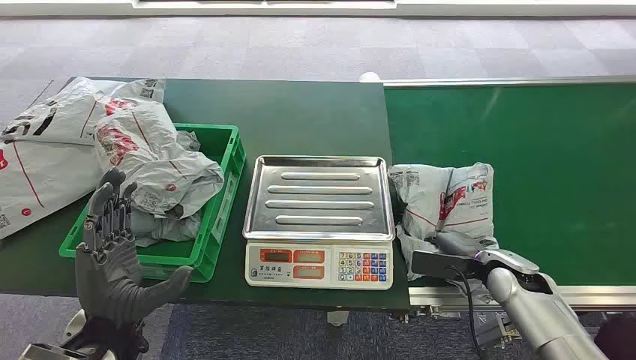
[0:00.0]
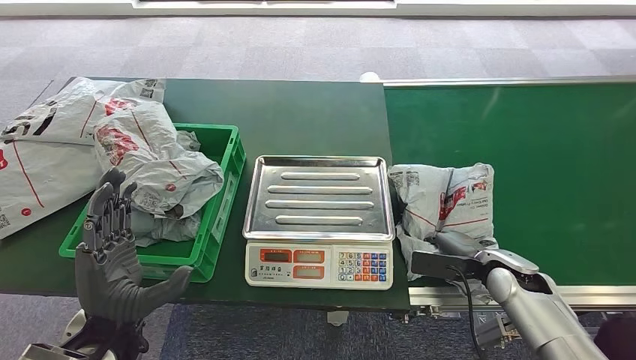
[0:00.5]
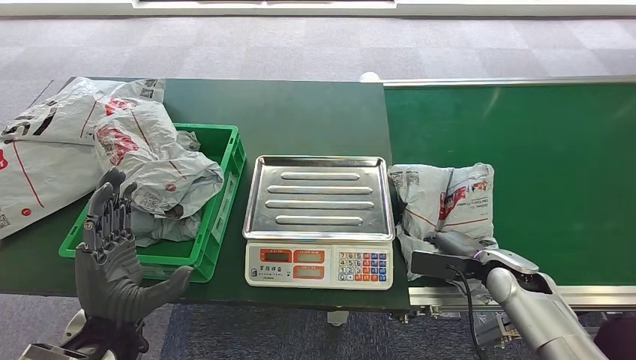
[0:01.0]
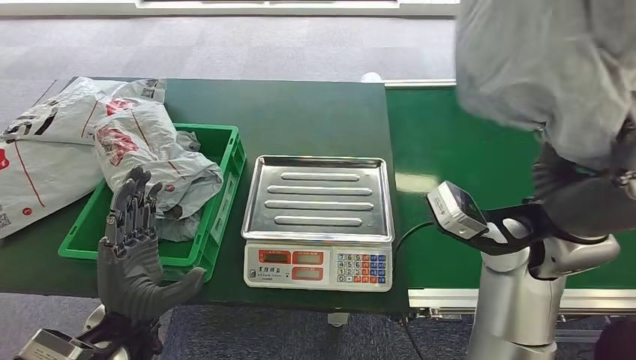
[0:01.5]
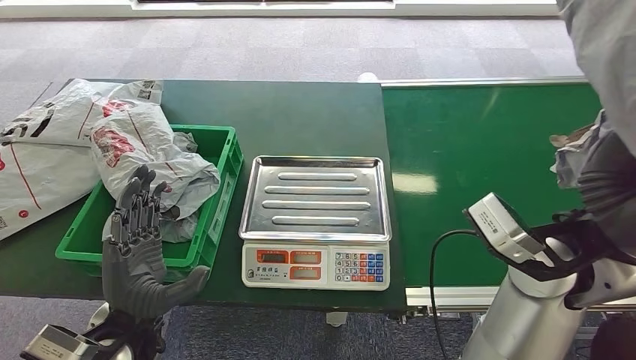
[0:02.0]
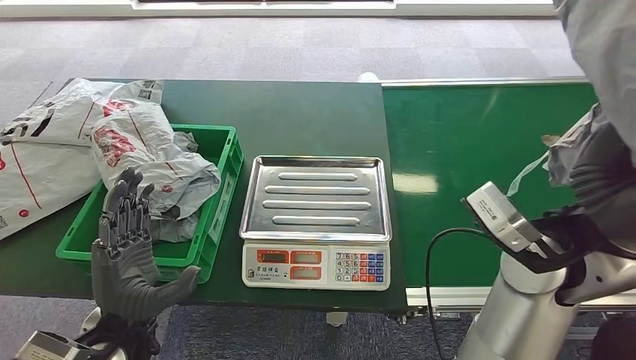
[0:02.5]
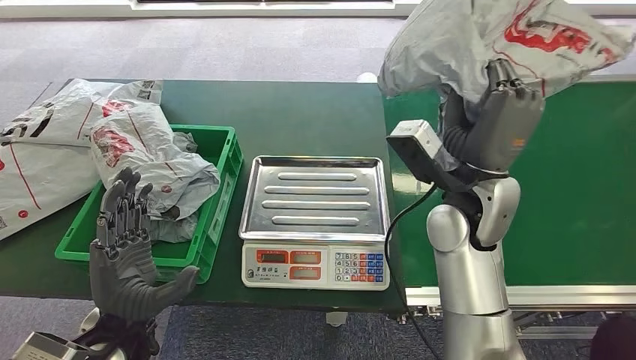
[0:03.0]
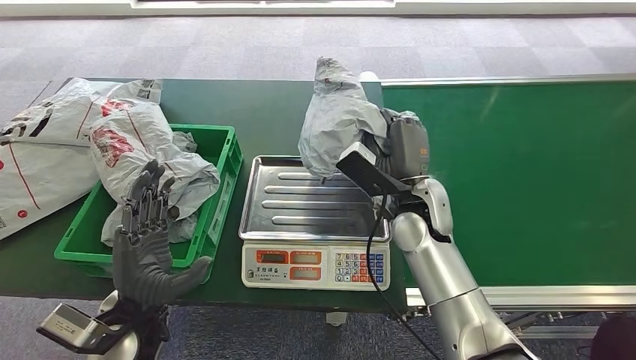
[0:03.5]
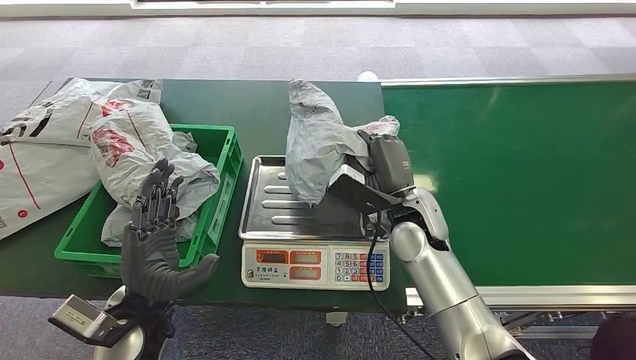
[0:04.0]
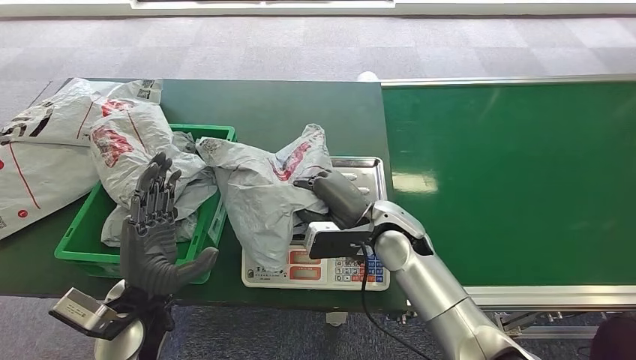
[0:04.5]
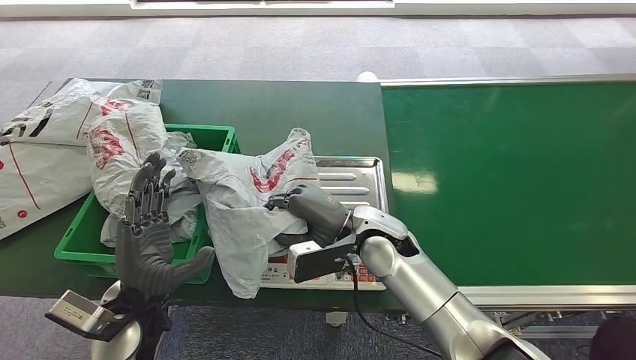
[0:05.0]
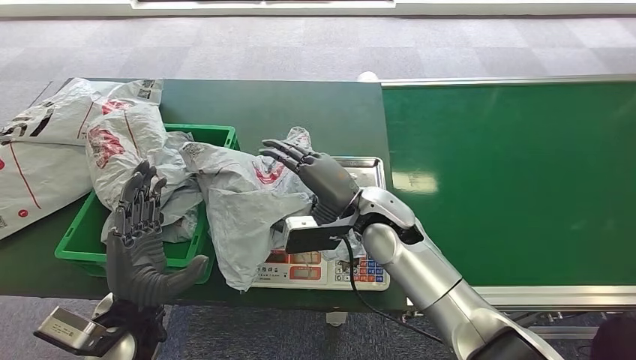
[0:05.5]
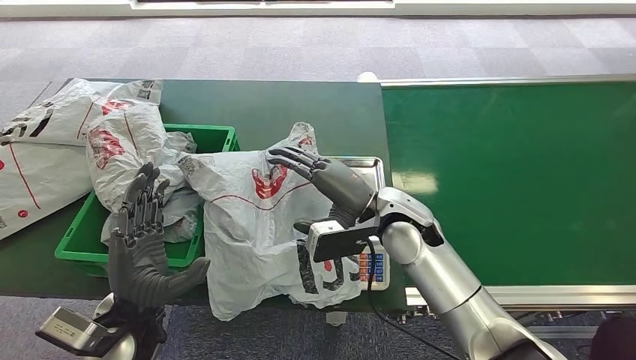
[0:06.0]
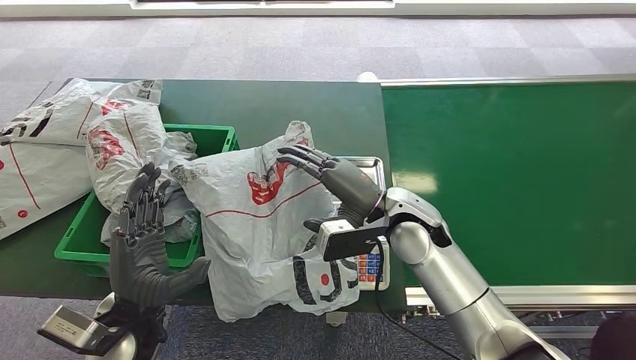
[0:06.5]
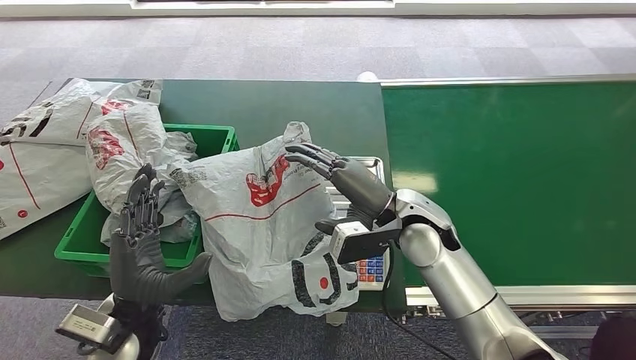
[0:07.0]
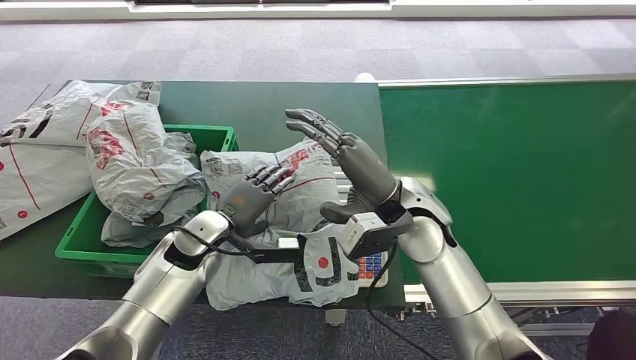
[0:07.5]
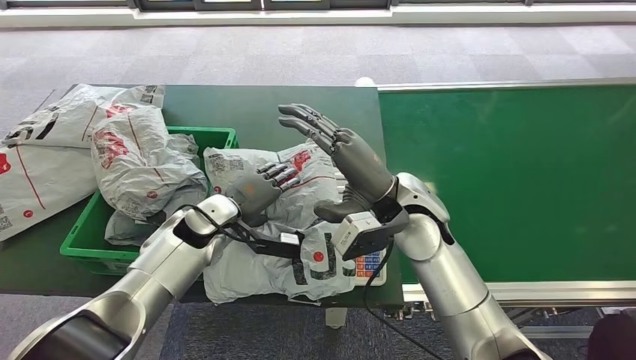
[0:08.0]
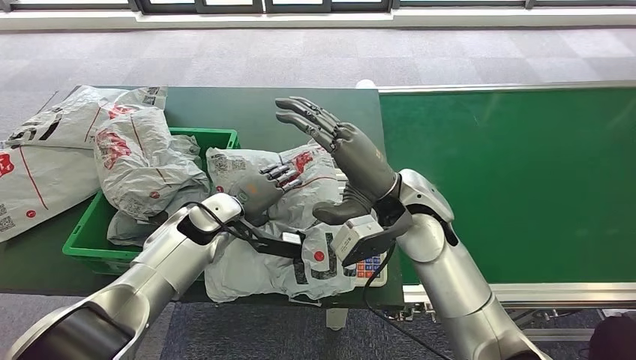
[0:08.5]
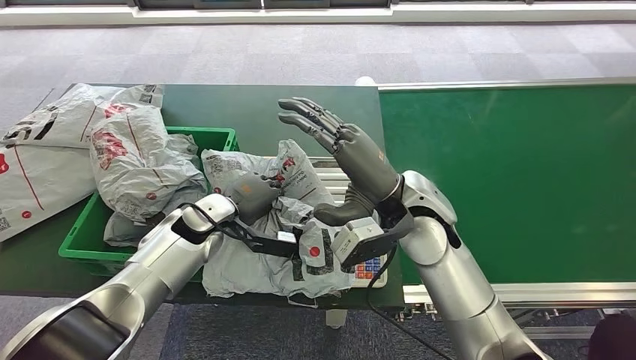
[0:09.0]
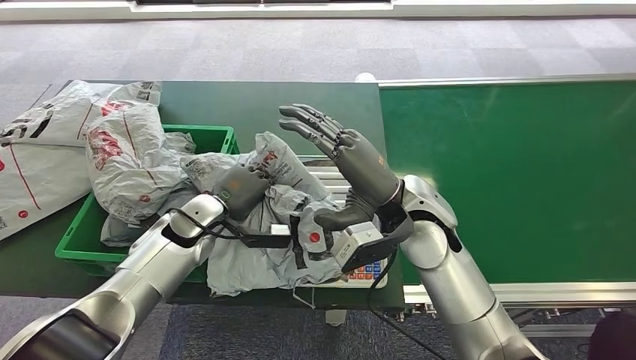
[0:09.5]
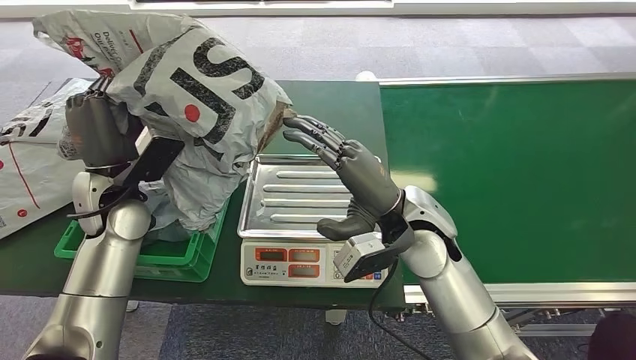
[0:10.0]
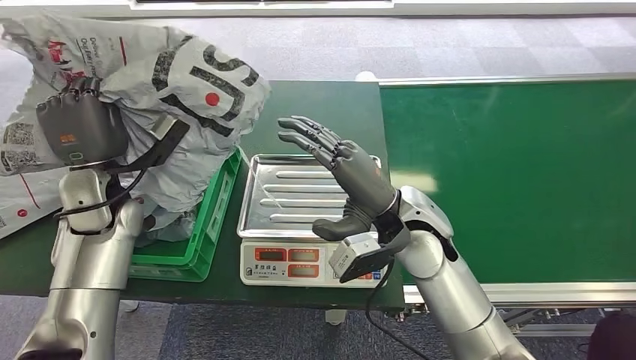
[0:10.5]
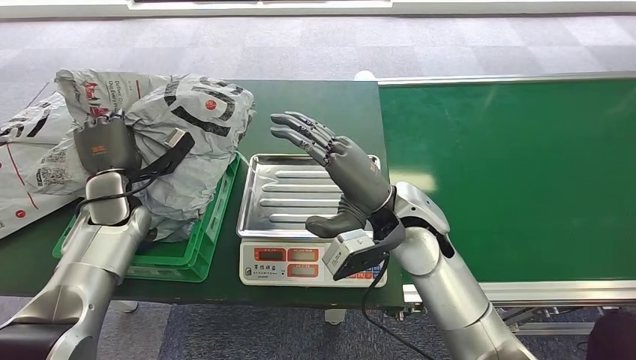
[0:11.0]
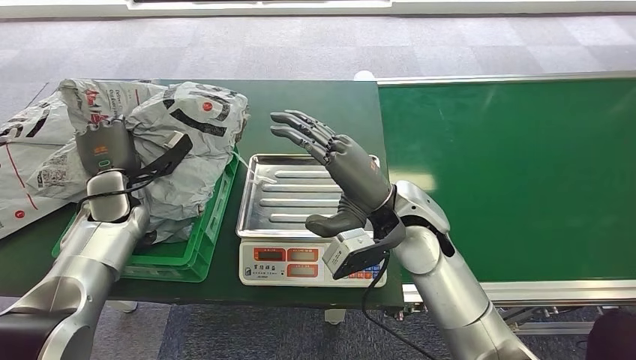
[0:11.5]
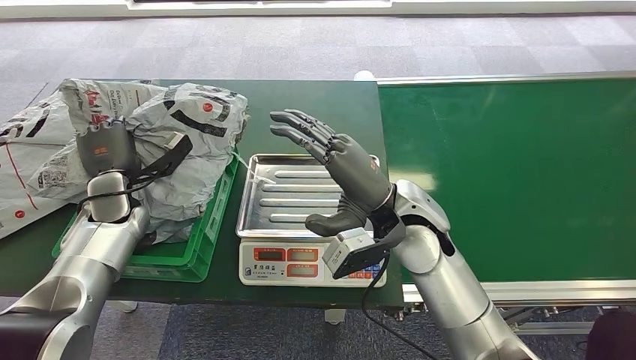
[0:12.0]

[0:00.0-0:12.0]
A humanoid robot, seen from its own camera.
Step, 0:00.0 to 0:02.0: Pick up the package from the conveyor belt.
Step, 0:02.5 to 0:04.0: Place the package onto the inbound machine.
Step, 0:07.5 to 0:10.0: Pick up the package from the inbound machine.
Step, 0:10.5 to 0:12.0: Place the package into the parcel locker.

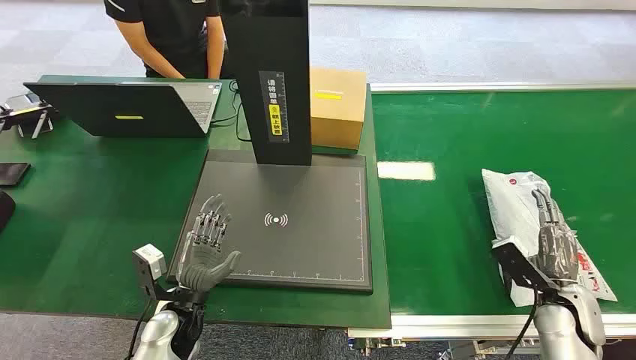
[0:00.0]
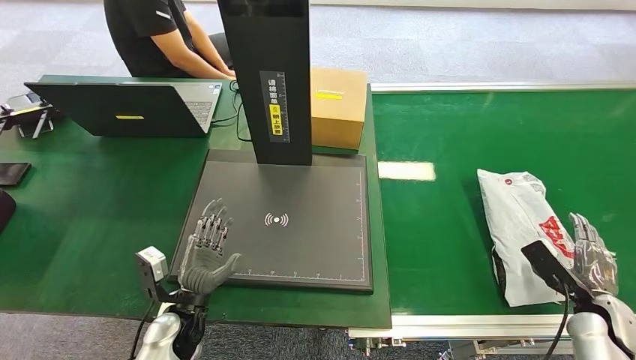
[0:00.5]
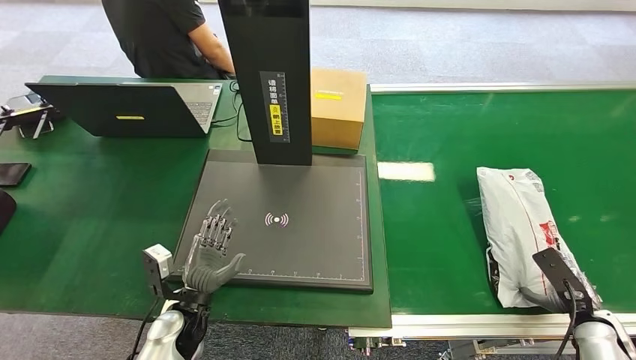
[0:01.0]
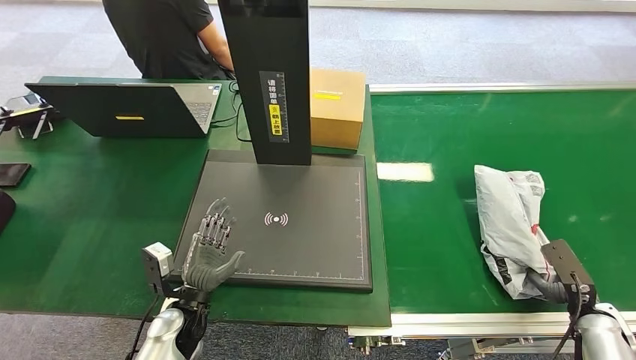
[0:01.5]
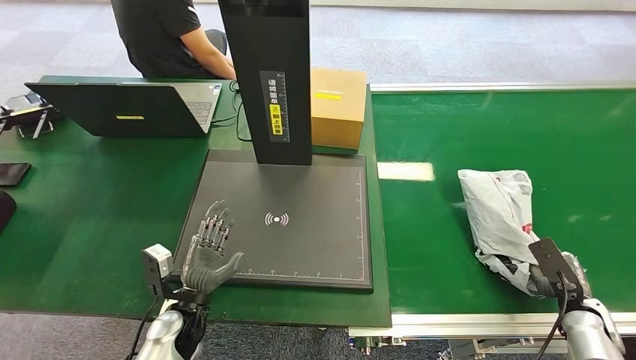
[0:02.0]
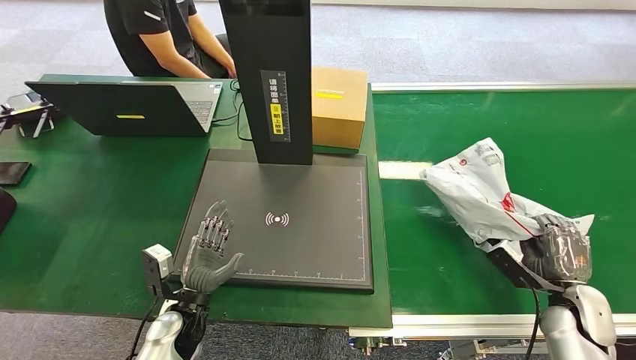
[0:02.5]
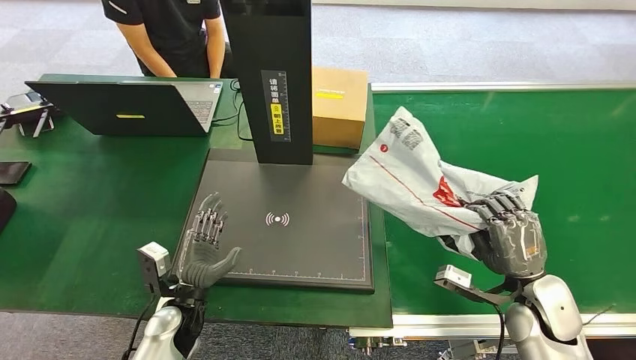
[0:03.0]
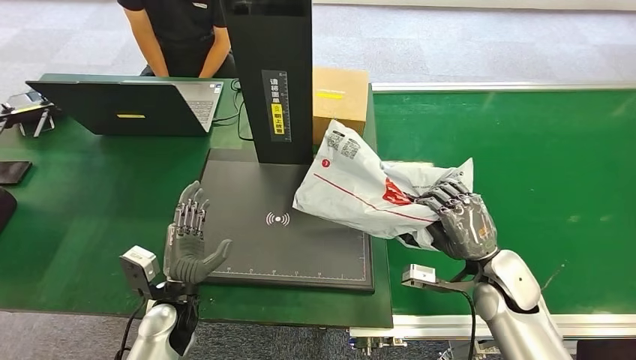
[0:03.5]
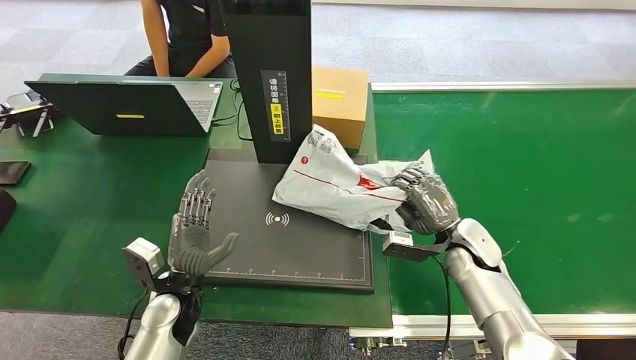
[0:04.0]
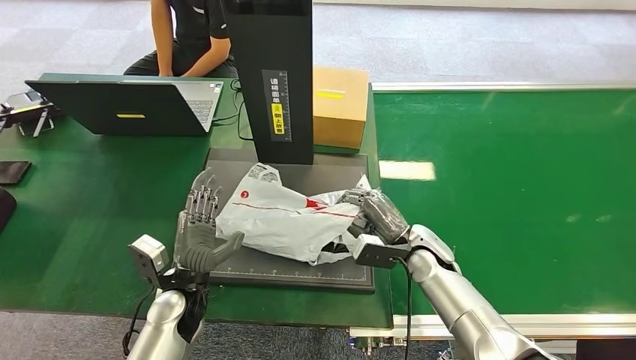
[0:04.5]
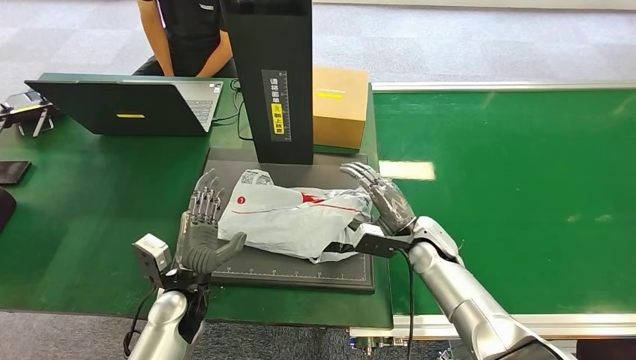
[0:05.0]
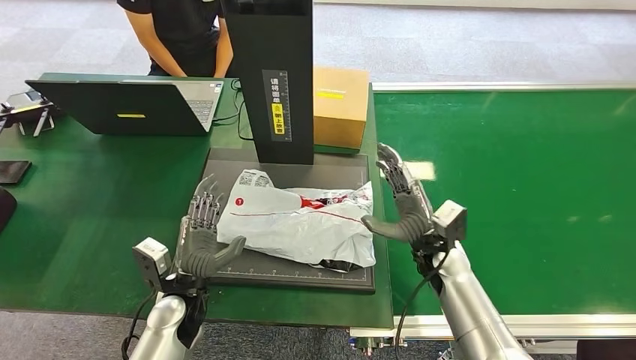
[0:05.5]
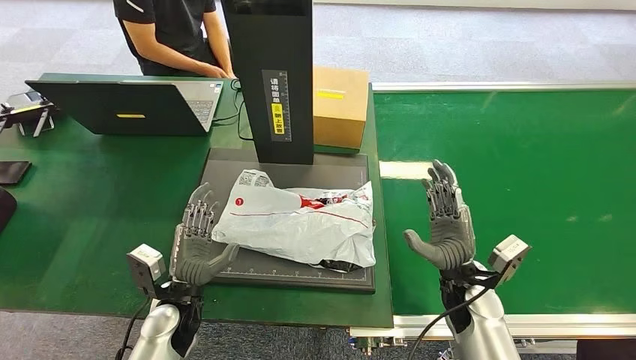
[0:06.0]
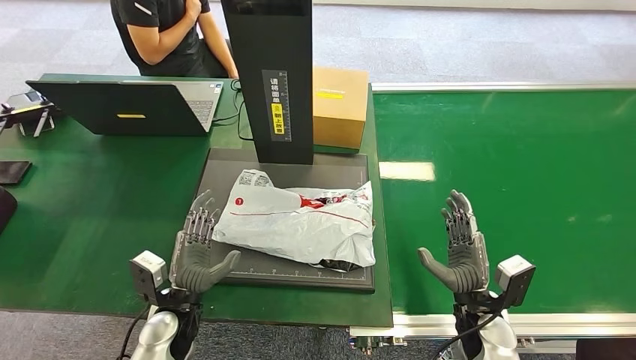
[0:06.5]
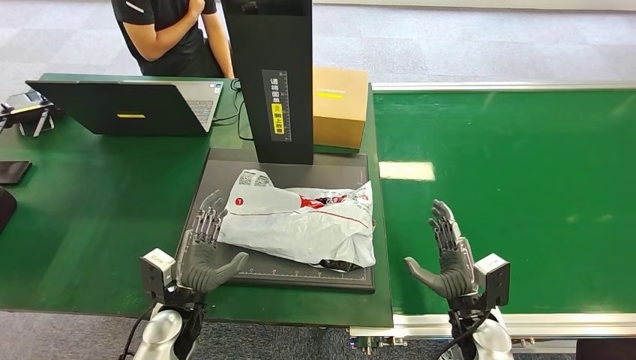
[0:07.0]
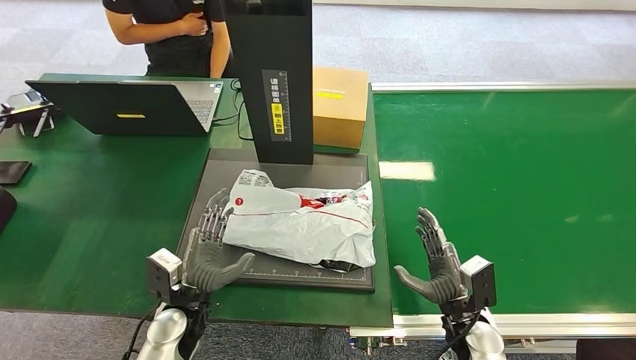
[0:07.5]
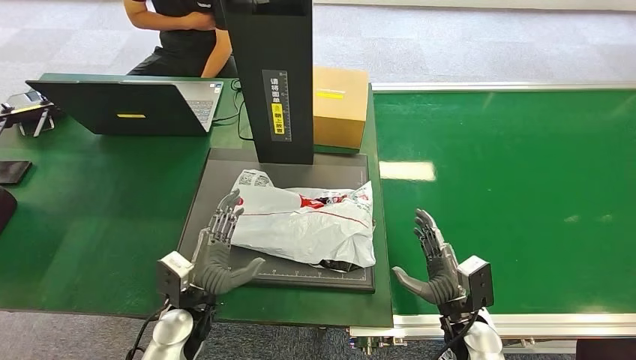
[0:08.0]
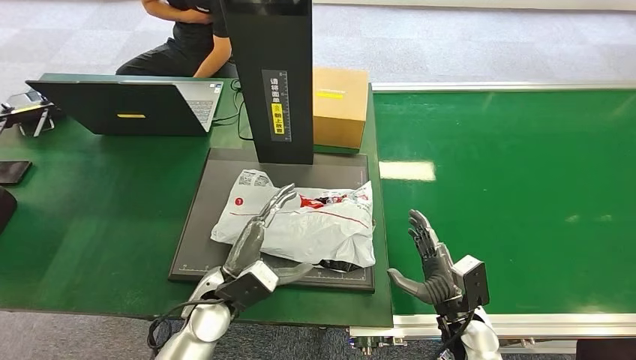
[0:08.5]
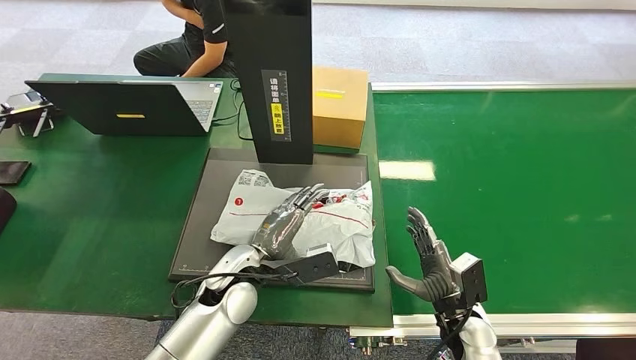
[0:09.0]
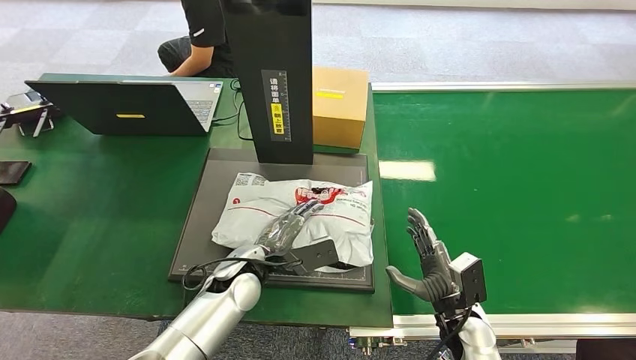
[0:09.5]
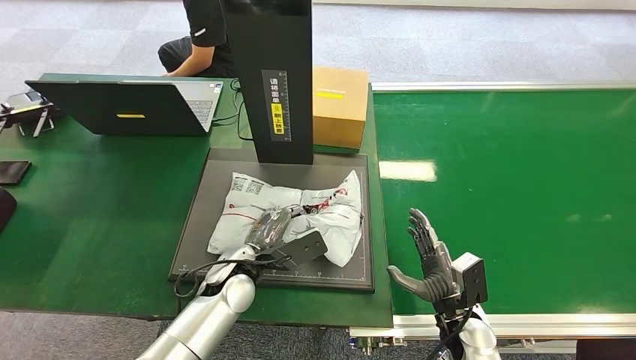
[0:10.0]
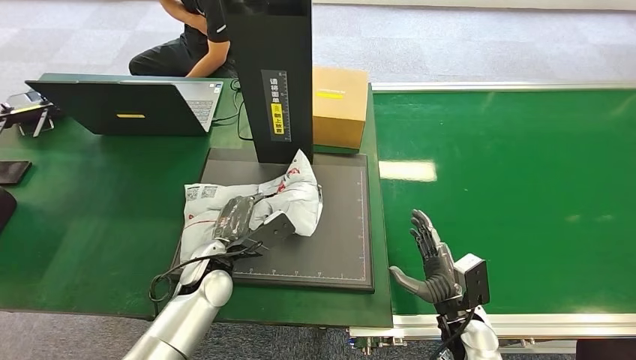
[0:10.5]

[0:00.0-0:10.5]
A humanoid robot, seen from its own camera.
Step, 0:00.0 to 0:03.0: Pick up the package from the conveyor belt.
Step, 0:03.5 to 0:06.0: Place the package onto the inbound machine.
0:06.5 to 0:08.5: The left hand shifts roughly 10 cm to the right and upward.
0:08.5 to 0:10.5: The left hand heads forward, covering roughly 5 cm.
